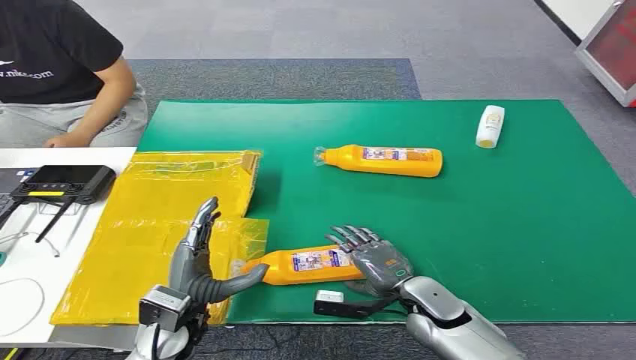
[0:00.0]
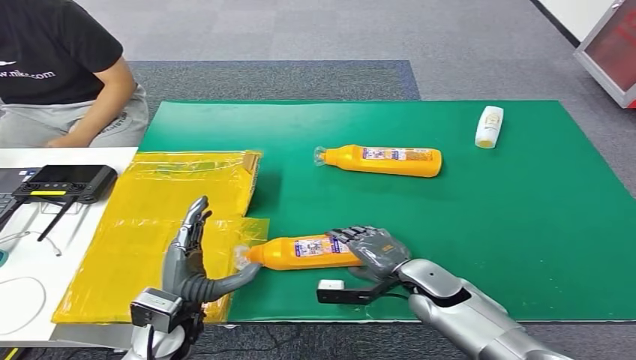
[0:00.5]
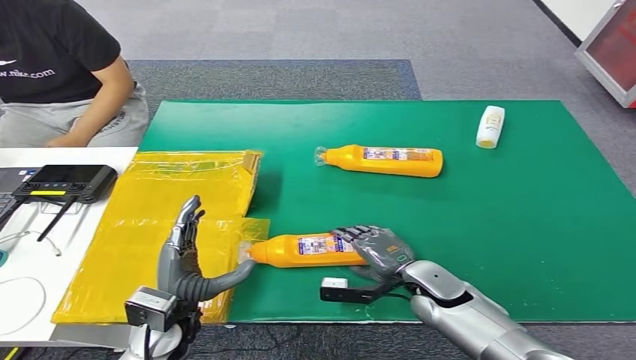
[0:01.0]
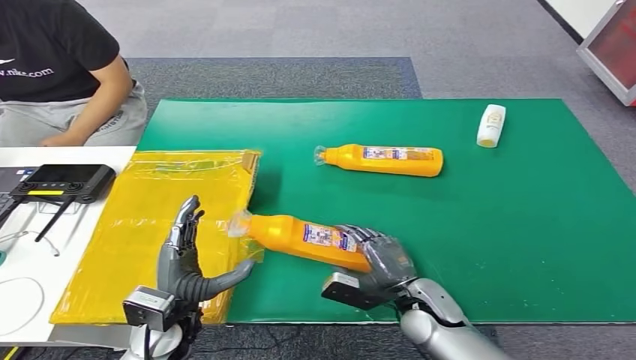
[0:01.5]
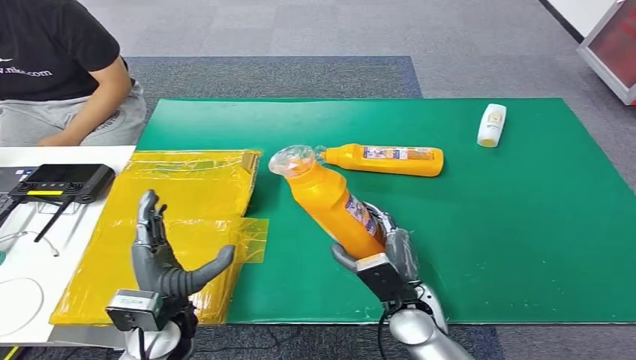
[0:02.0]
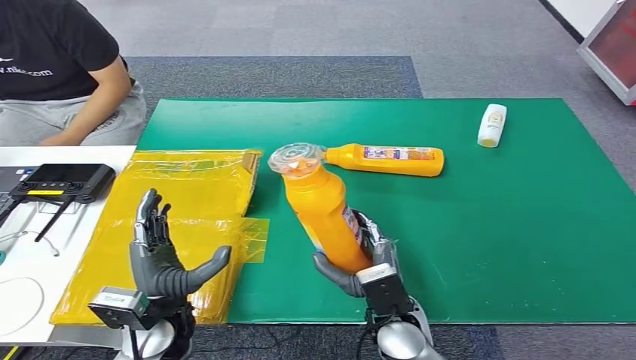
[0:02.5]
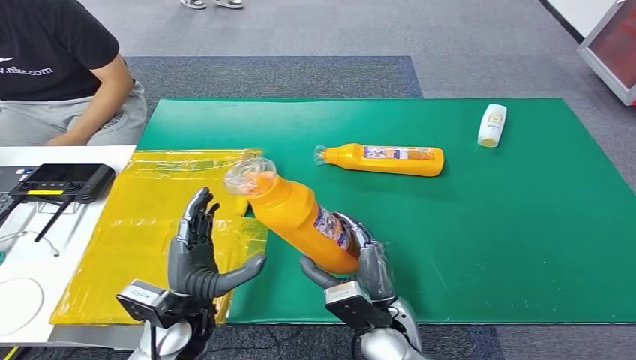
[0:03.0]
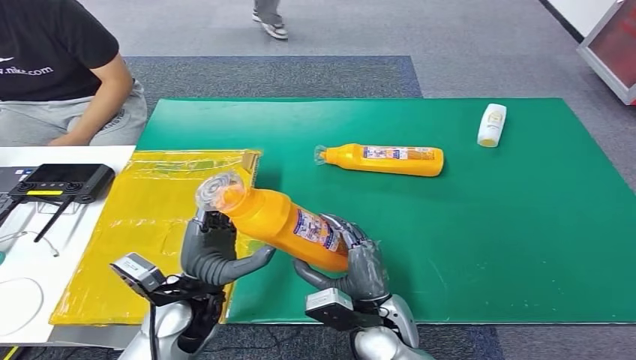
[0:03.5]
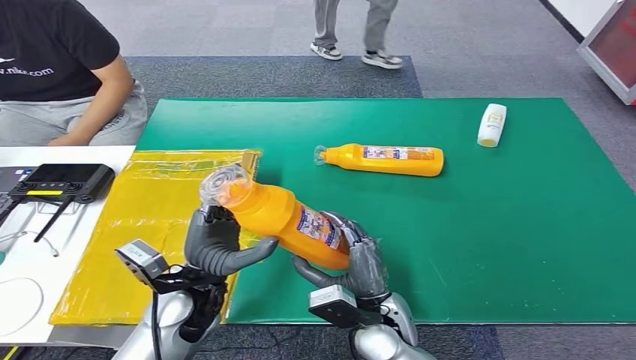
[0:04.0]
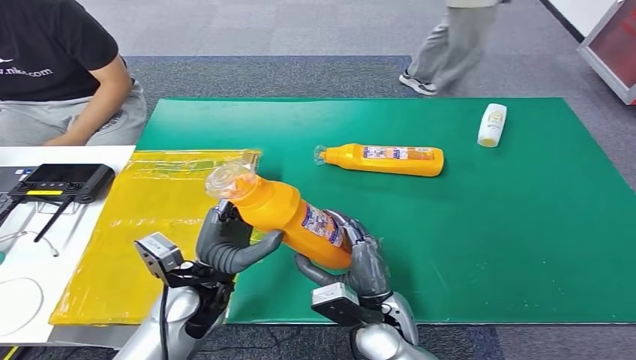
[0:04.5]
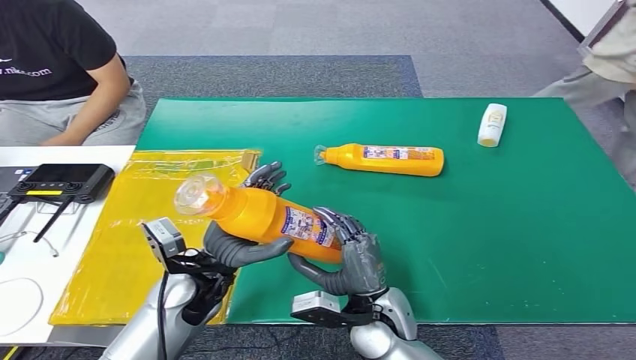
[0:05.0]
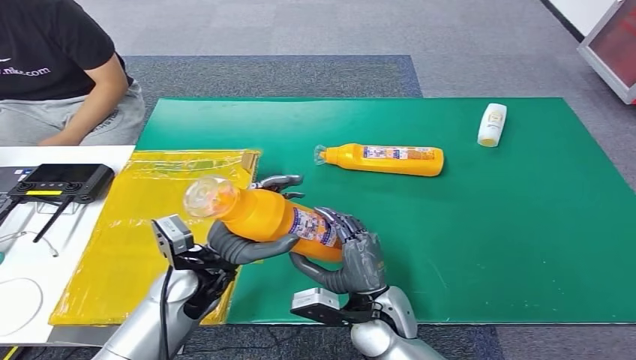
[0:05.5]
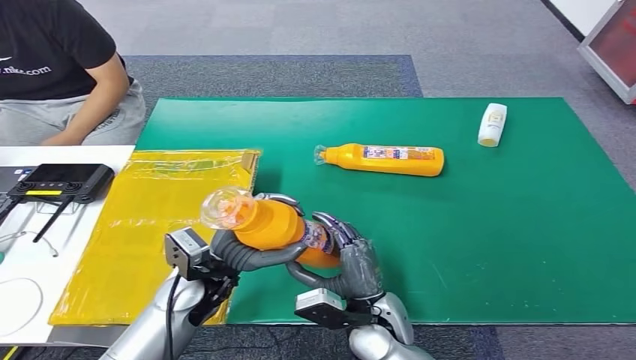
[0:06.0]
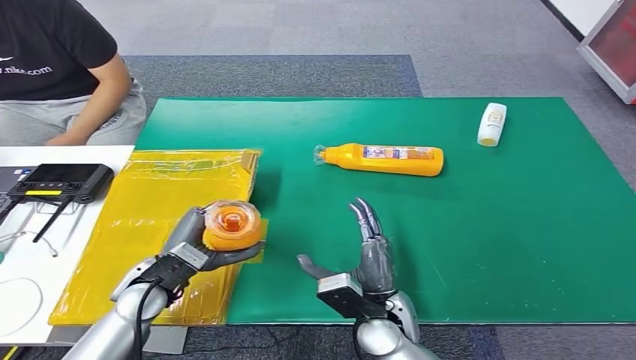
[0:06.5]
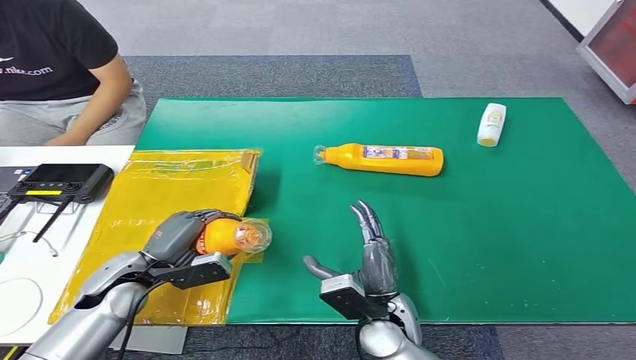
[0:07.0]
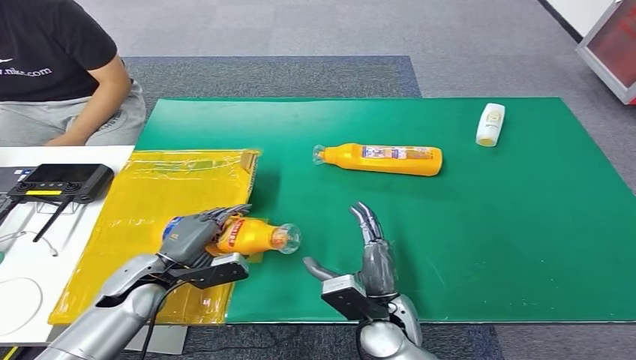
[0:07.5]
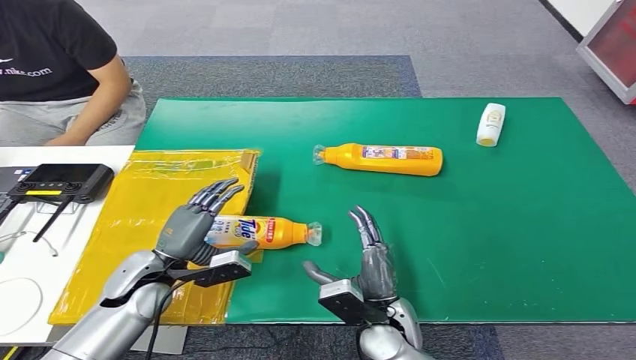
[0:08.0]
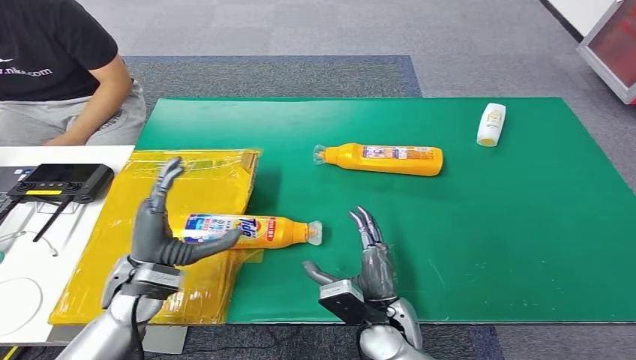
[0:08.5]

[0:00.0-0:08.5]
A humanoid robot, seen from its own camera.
Step, 0:00.0 to 0:01.5: Pick up the bottle from the table.
Step, 0:02.0 to 0:08.5: Turn the bottle to the front side.
0:02.0 to 0:04.0: The left hand shifts by roughly 5 cm, while the right hand changes place by about 5 cm.
0:04.0 to 0:06.5: The left hand heads to the left, covering approximately 5 cm.
